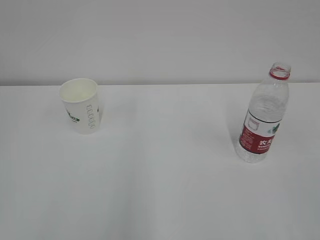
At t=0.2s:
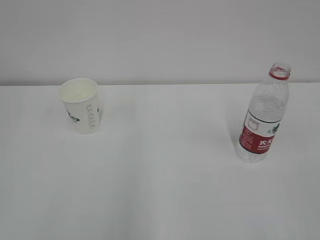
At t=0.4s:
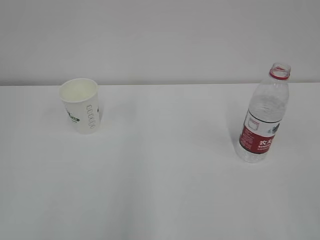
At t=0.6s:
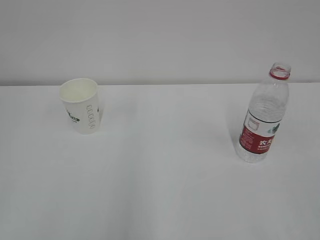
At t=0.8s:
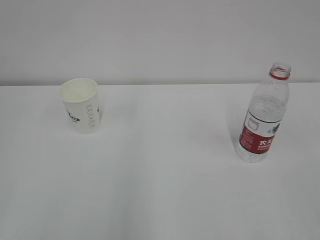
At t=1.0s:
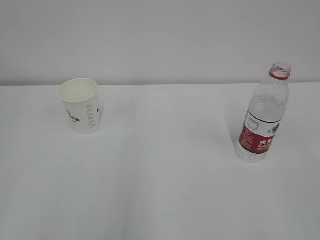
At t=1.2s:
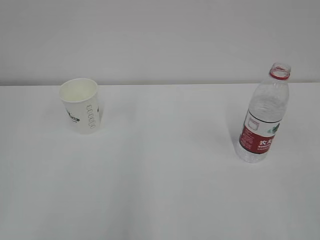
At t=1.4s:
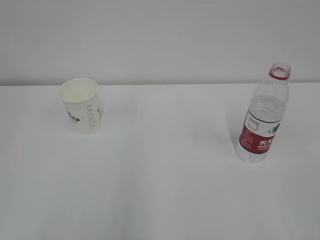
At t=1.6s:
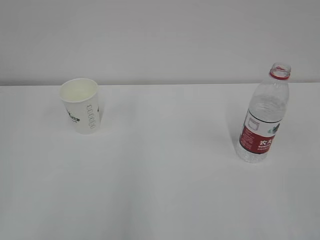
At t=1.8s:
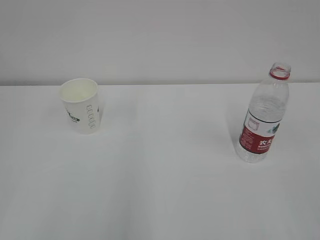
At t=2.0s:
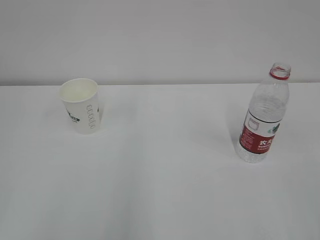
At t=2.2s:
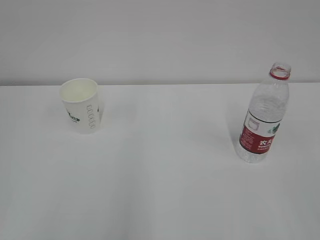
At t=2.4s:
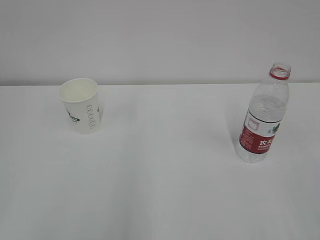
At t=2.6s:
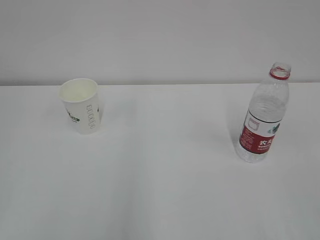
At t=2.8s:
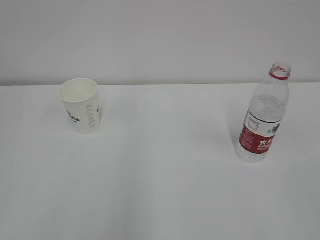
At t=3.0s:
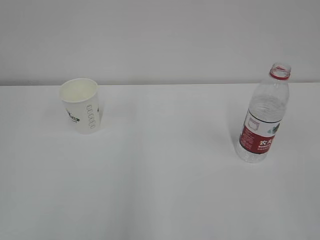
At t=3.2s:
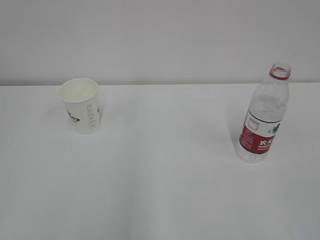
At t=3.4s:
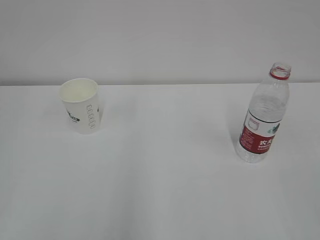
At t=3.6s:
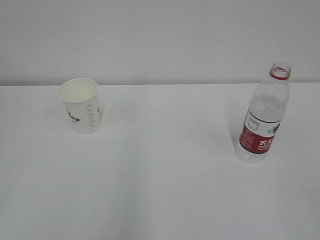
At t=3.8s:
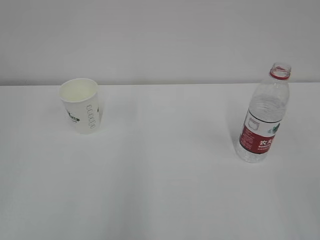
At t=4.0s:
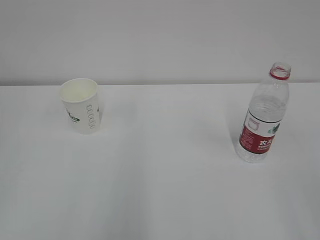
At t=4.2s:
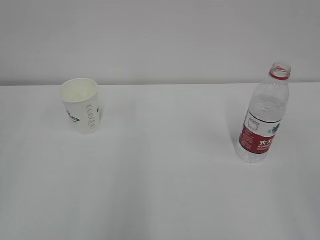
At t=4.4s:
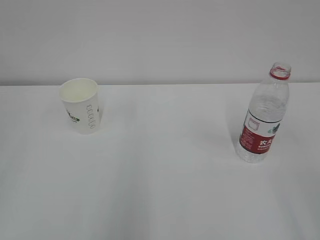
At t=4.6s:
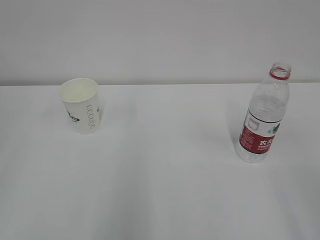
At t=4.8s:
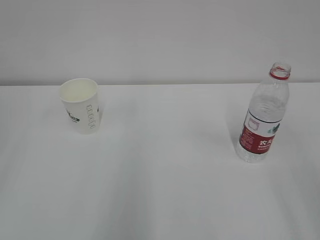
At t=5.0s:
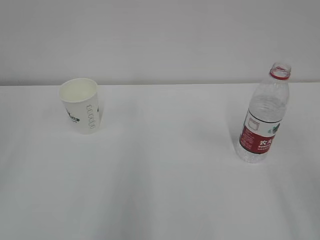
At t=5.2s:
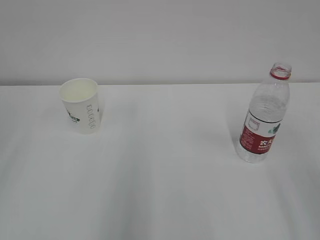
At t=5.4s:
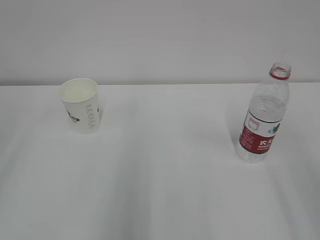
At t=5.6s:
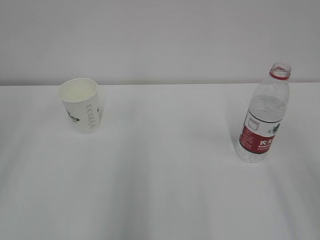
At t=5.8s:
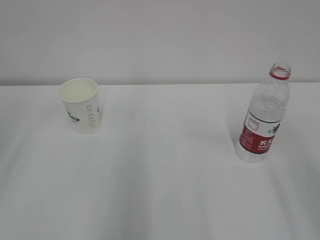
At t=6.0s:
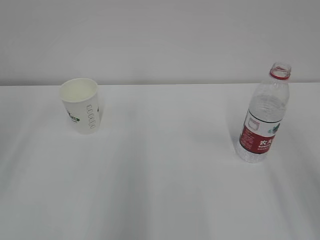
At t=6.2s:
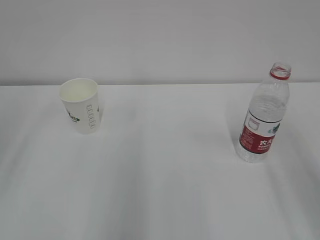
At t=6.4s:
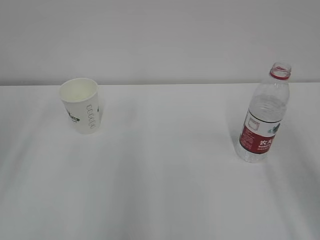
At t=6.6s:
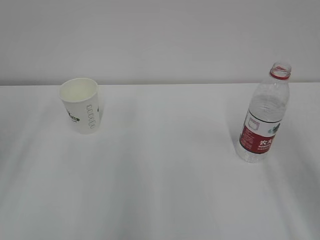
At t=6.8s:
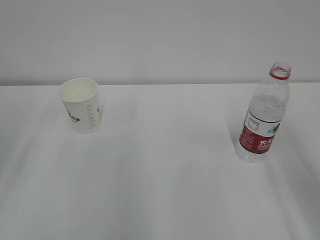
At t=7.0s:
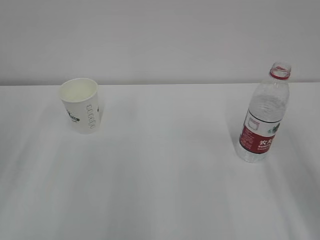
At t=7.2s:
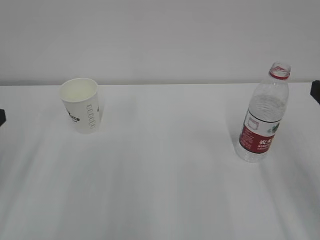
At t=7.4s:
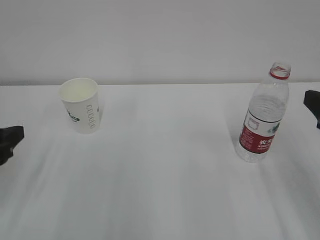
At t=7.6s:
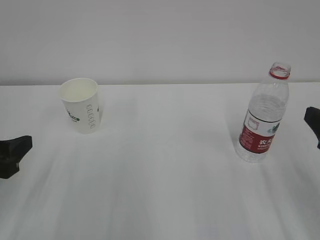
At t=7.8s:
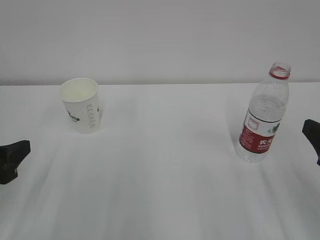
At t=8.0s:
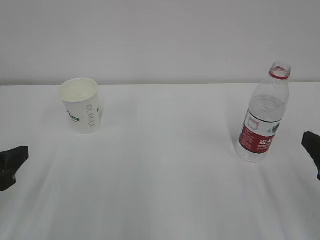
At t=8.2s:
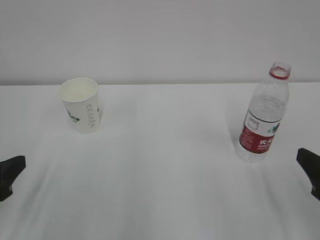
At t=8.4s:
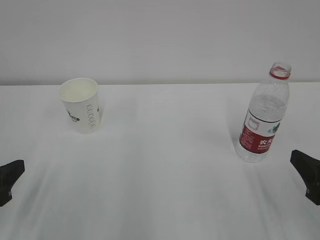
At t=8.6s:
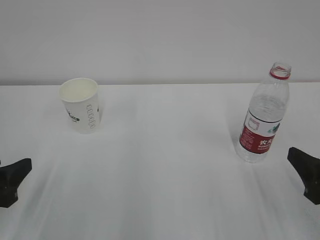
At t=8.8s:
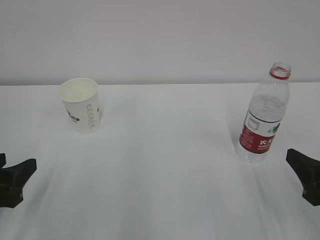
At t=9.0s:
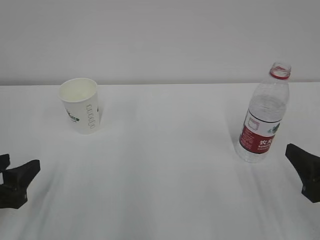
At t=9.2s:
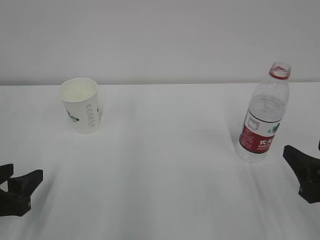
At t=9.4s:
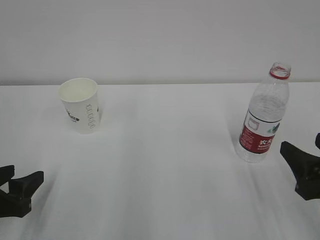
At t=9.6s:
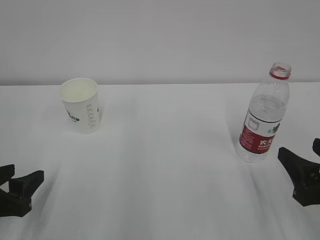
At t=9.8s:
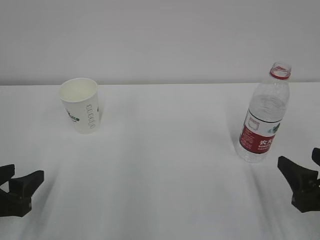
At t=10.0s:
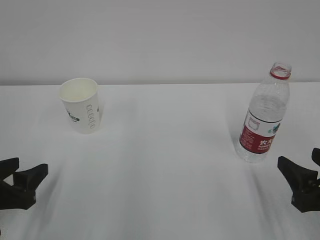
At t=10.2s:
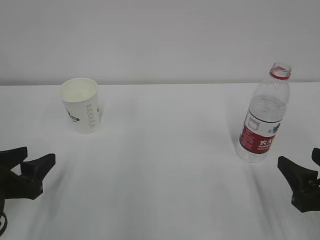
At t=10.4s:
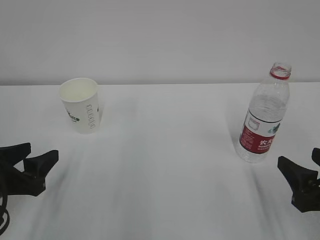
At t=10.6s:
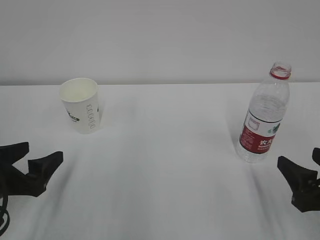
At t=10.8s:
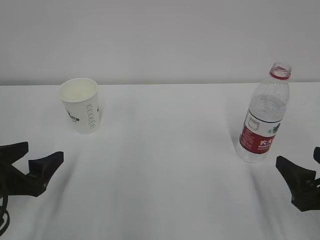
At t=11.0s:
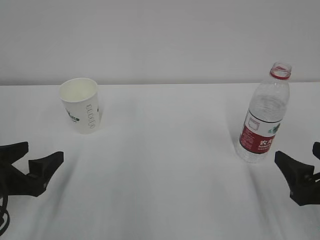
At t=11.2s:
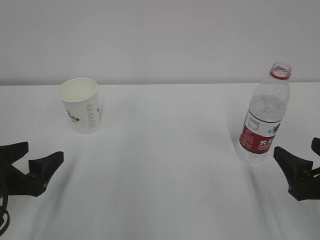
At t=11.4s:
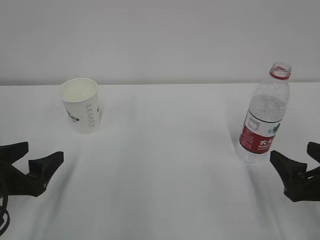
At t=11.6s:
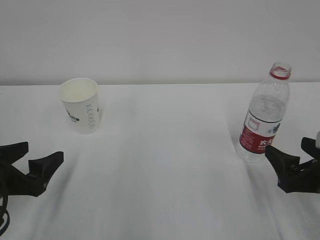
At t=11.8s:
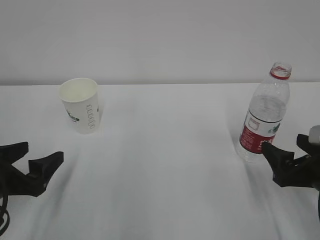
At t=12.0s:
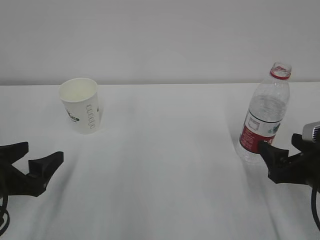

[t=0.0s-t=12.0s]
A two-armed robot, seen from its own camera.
t=1.6s to t=3.0s: Neither gripper changes place.
t=6.0s to t=7.6s: The left gripper heads downward, covering about 15 cm.
t=7.6s to t=9.0s: The left gripper moves approximately 5 cm. Meanwhile the right gripper heads downward, covering some 5 cm.
t=9.0s to t=10.4s: The grippers move only a little.
t=10.4s to t=12.0s: The left gripper opens up; the right gripper travels forward by some 5 cm, and opens up.

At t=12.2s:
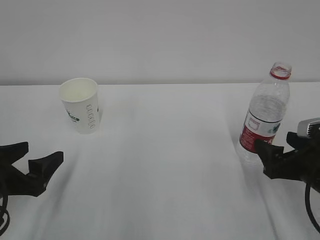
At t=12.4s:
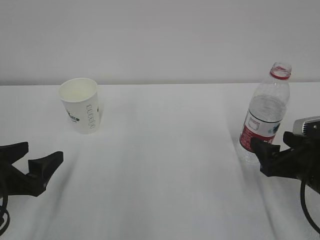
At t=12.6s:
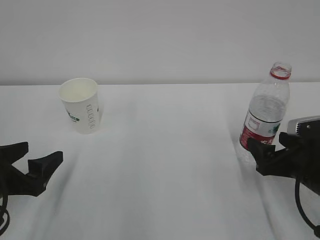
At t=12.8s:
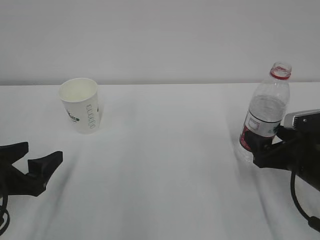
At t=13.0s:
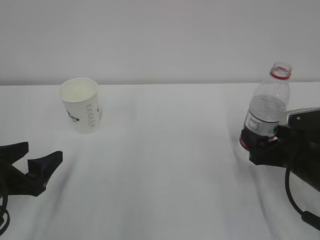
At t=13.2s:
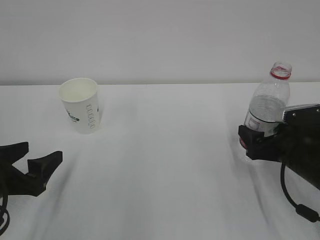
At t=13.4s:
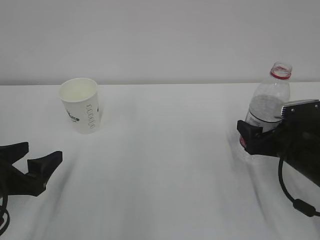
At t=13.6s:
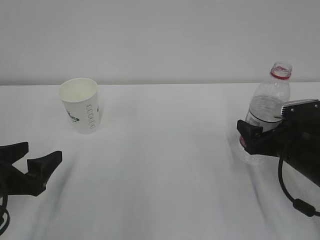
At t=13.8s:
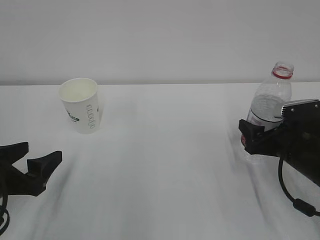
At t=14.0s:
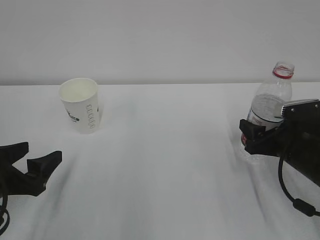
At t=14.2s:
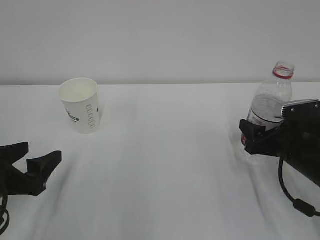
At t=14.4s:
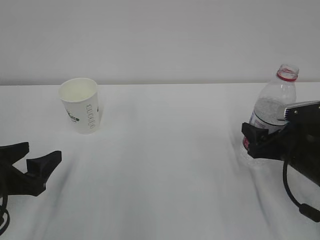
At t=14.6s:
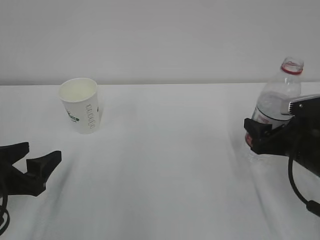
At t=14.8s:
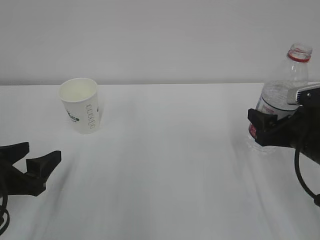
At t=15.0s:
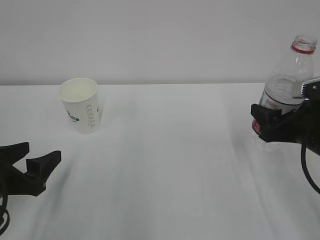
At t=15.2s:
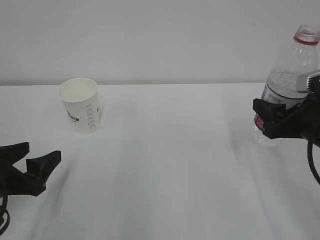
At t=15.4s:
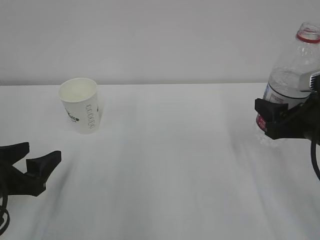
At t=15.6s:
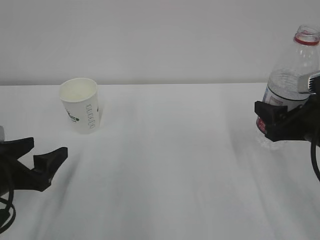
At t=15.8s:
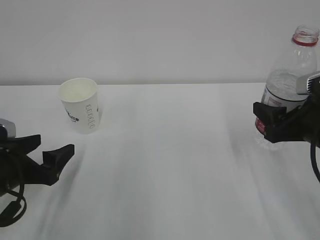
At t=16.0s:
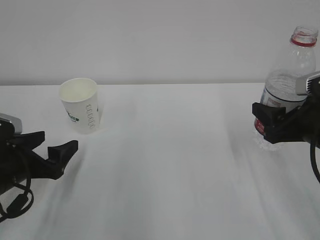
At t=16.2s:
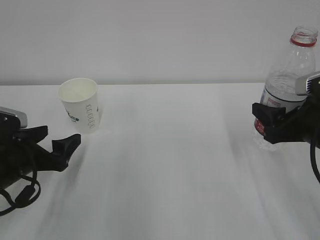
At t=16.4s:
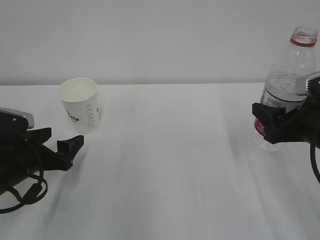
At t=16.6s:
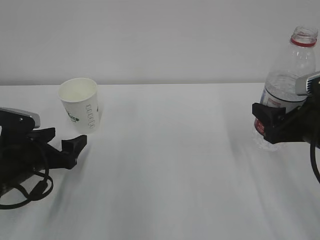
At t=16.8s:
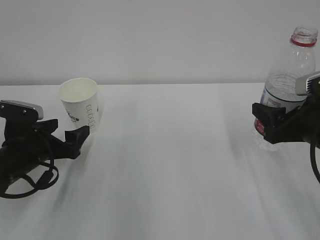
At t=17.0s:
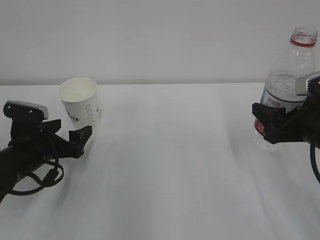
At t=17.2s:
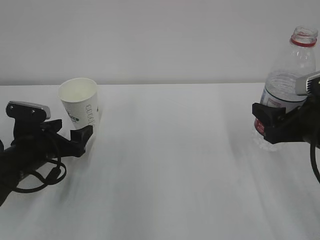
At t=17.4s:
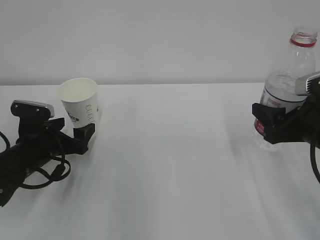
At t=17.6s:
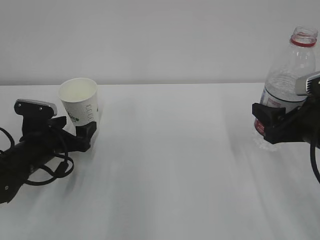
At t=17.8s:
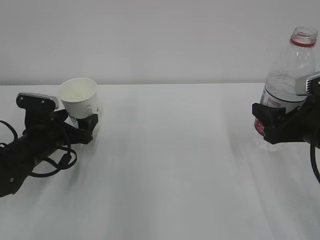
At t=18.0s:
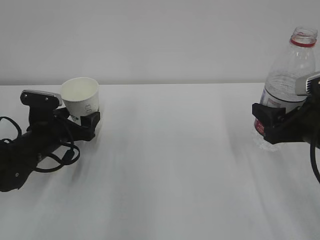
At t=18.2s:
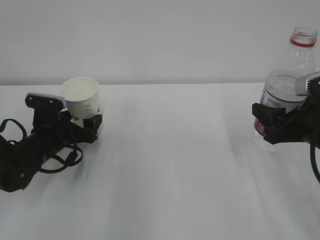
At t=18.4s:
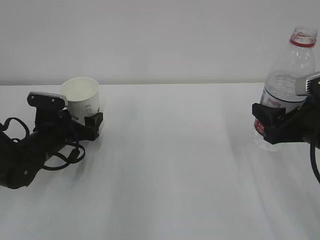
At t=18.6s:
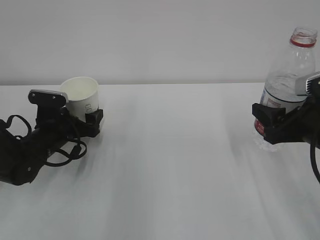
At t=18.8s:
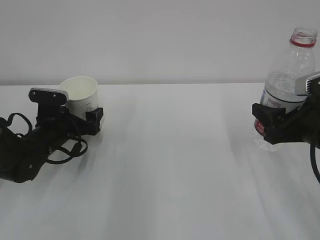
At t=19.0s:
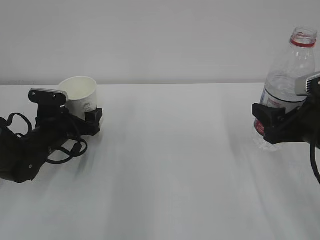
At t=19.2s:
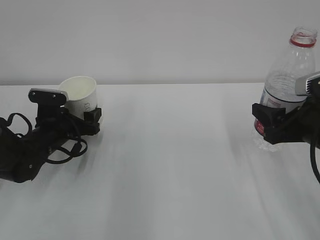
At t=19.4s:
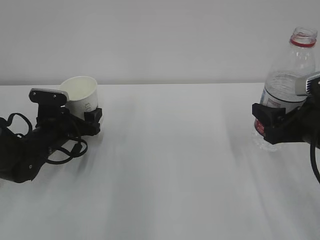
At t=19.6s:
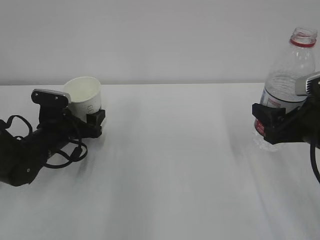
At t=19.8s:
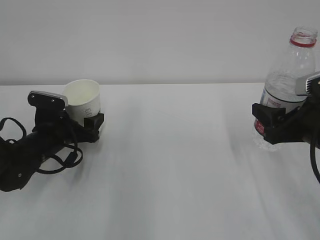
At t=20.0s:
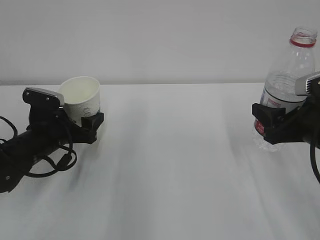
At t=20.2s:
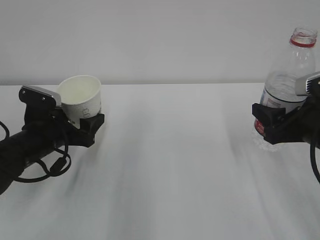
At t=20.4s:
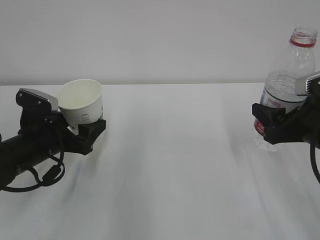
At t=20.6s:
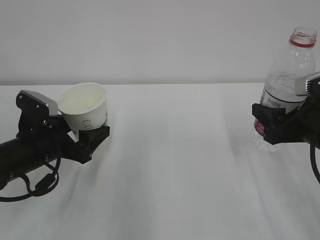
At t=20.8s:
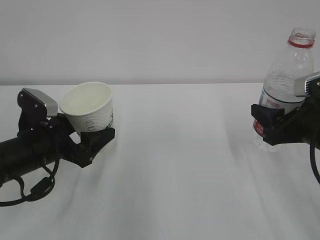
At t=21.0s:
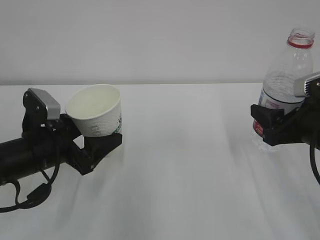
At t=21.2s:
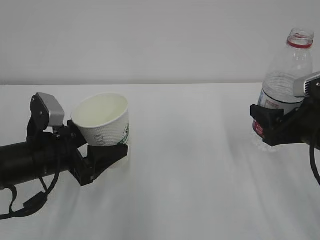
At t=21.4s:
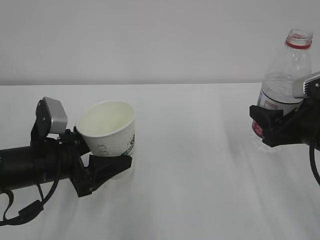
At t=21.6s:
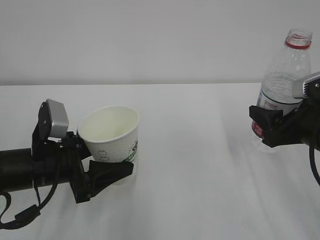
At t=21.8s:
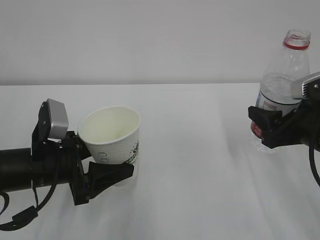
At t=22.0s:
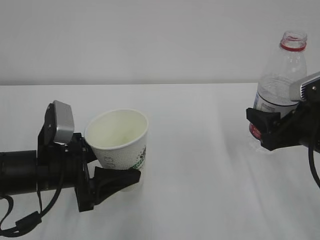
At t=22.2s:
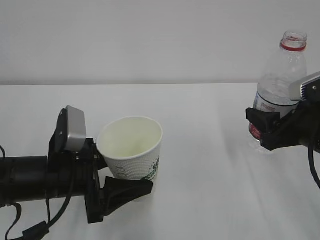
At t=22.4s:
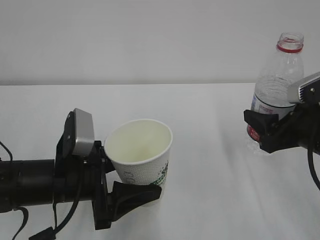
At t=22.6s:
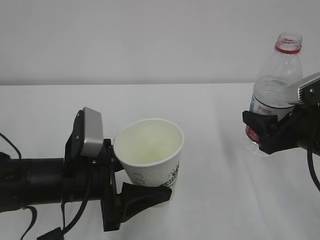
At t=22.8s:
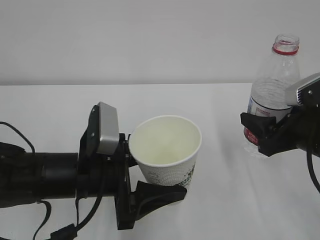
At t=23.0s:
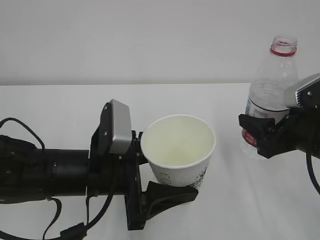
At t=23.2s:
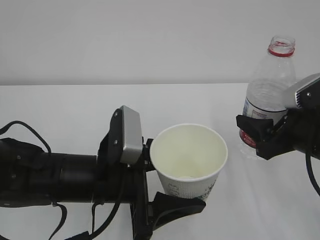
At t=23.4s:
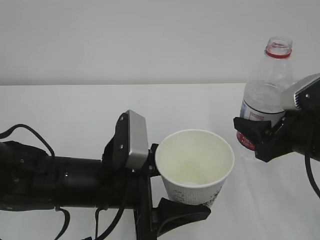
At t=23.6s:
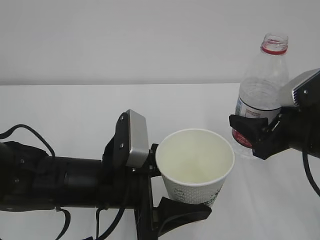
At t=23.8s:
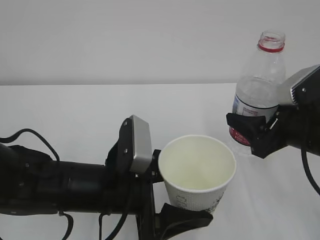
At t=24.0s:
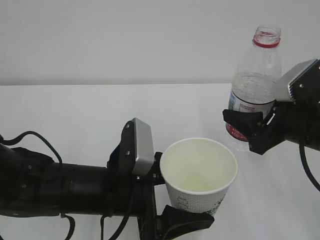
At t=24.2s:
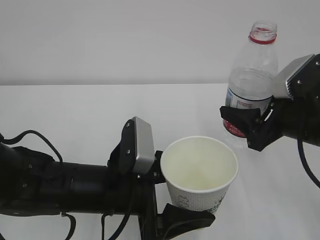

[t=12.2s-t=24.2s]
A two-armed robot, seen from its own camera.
t=12.2s to t=13.8s: The right gripper is displaced forward by some 5 cm, and closes.
t=13.8s to t=15.2s: The right gripper heads upward, covering roughly 10 cm.
t=15.2s to t=16.6s: The left gripper heads forward, covering approximately 5 cm, and opens its fingers.
t=16.6s to t=18.2s: The left gripper moves forward, about 10 cm.
t=18.2s to t=19.8s: The left gripper closes.
t=19.8s to t=21.2s: The left gripper moves backward and upward, some 10 cm.
t=21.2s to t=22.6s: The left gripper travels to the right by some 5 cm.
t=22.6s to t=24.2s: The left gripper shifts roughly 5 cm to the right.
